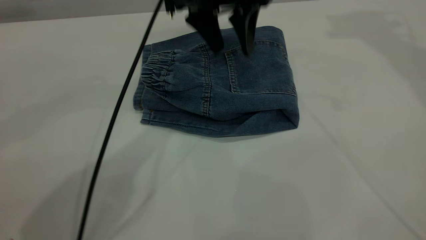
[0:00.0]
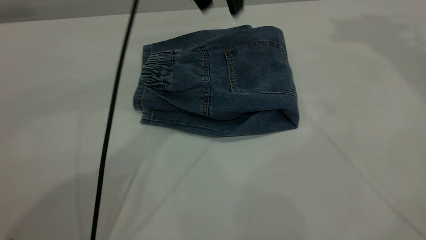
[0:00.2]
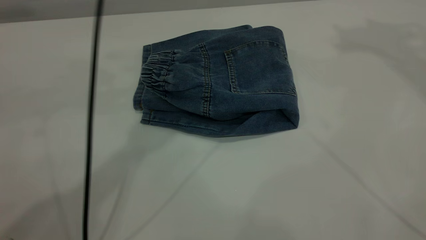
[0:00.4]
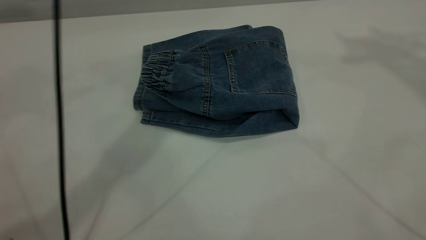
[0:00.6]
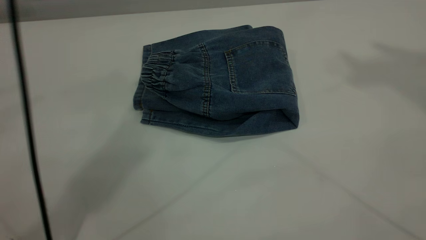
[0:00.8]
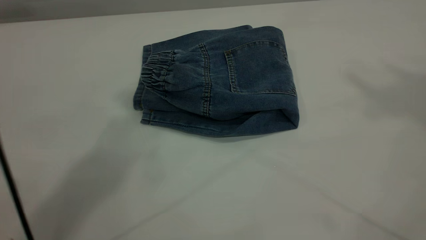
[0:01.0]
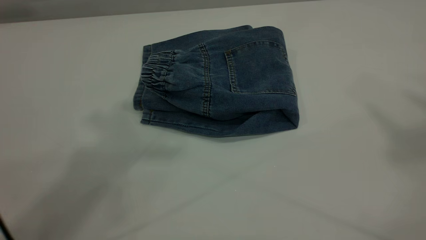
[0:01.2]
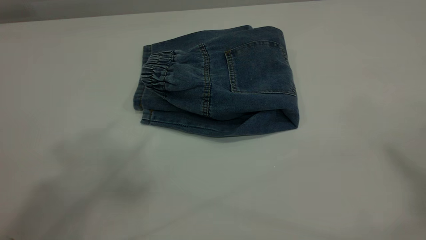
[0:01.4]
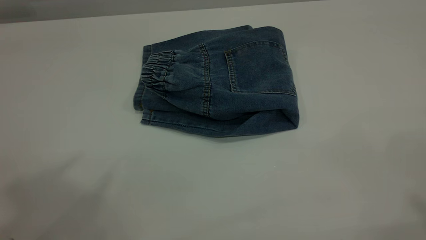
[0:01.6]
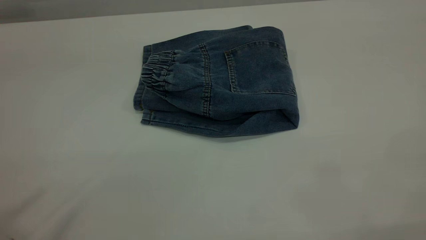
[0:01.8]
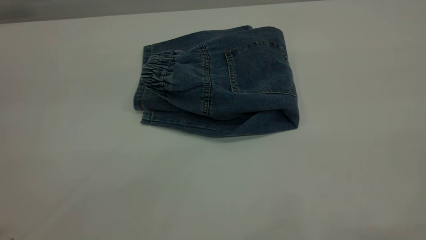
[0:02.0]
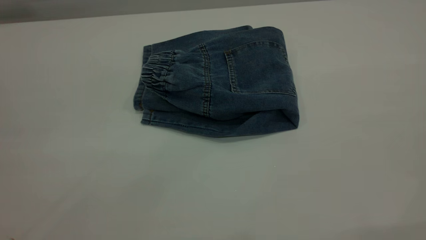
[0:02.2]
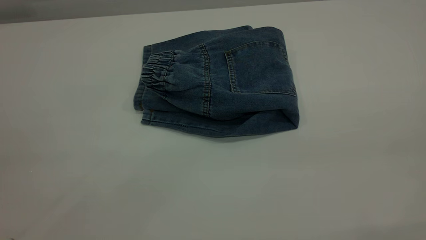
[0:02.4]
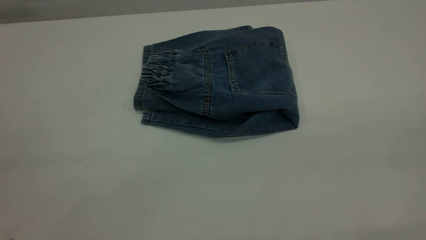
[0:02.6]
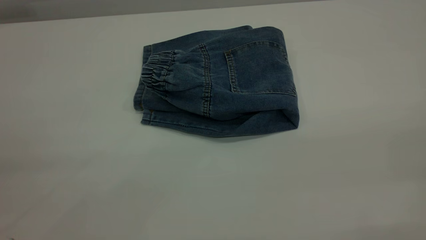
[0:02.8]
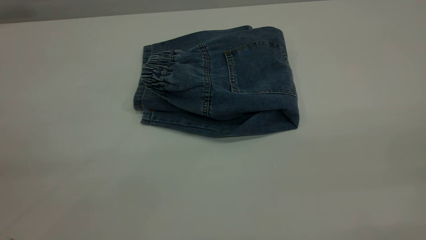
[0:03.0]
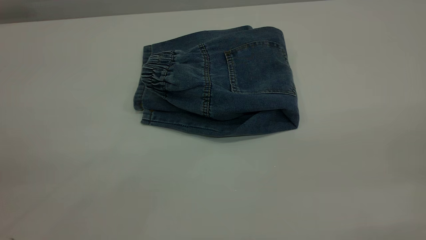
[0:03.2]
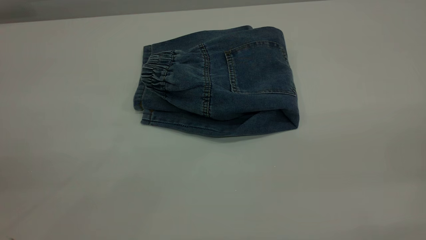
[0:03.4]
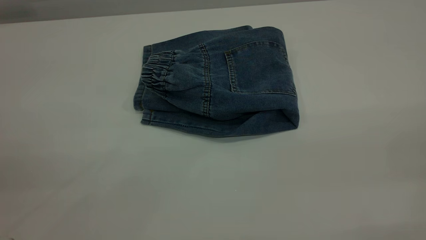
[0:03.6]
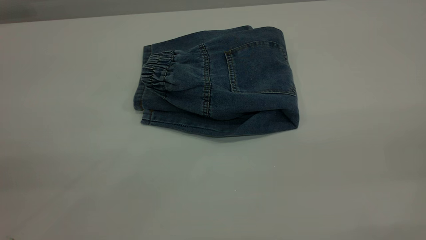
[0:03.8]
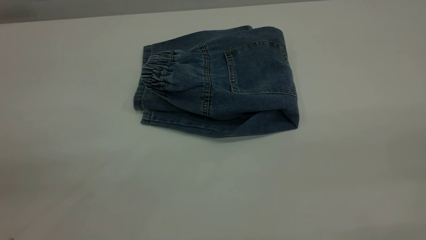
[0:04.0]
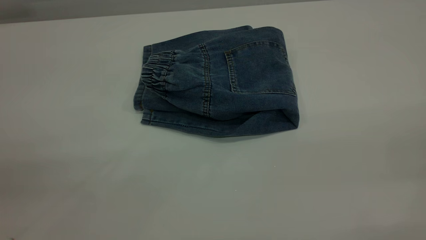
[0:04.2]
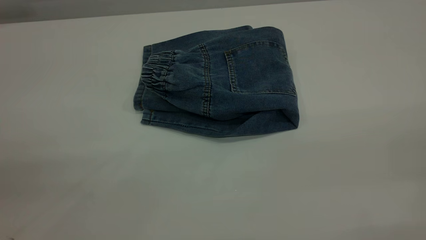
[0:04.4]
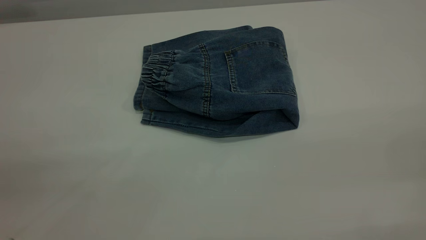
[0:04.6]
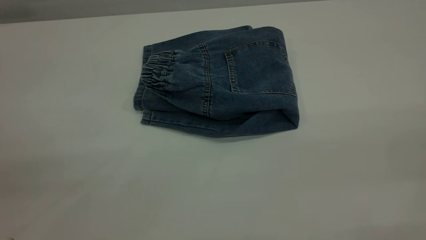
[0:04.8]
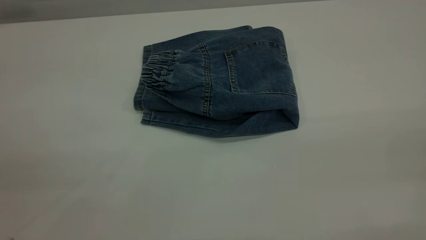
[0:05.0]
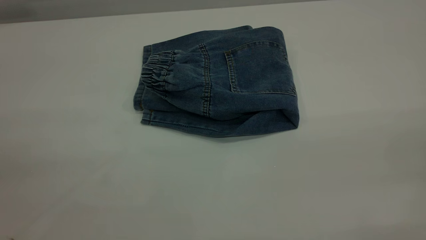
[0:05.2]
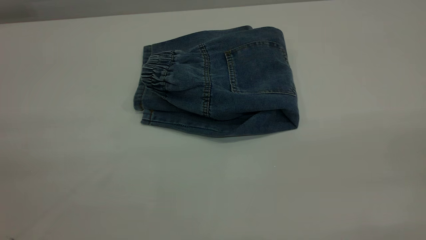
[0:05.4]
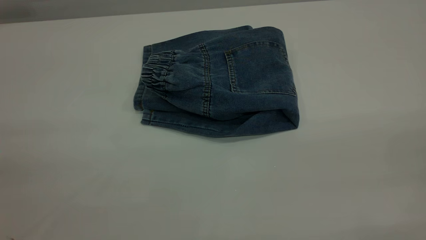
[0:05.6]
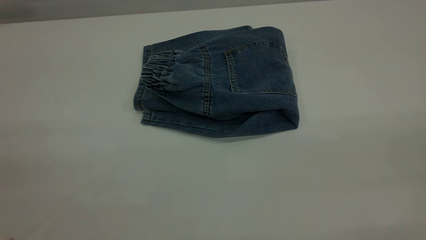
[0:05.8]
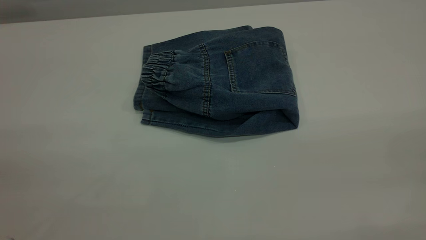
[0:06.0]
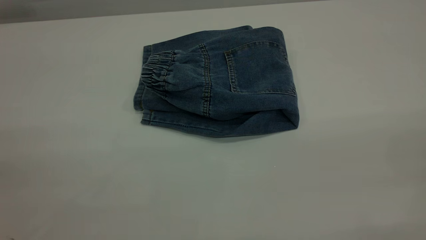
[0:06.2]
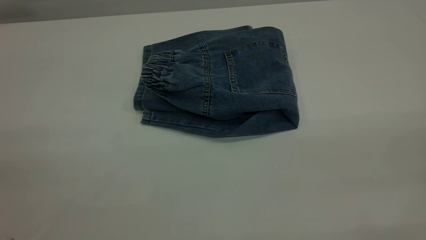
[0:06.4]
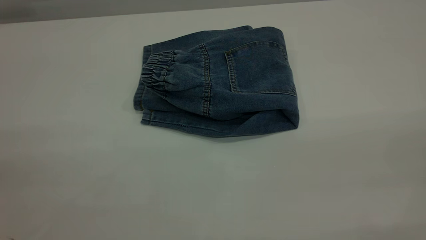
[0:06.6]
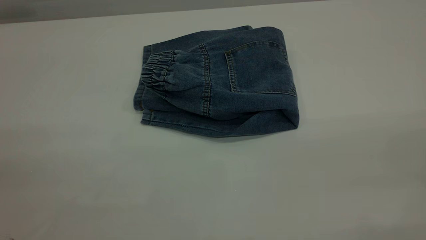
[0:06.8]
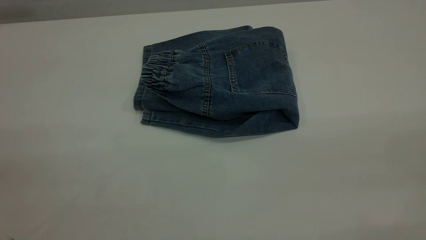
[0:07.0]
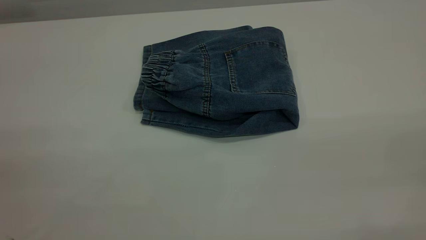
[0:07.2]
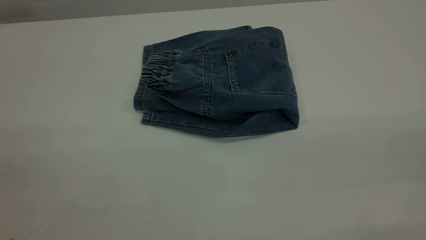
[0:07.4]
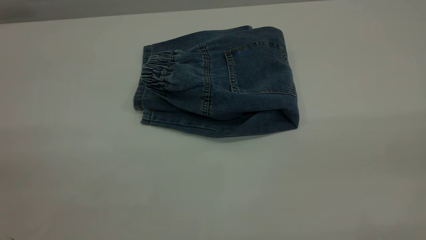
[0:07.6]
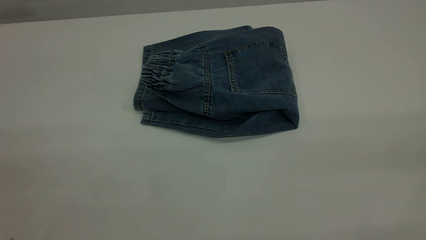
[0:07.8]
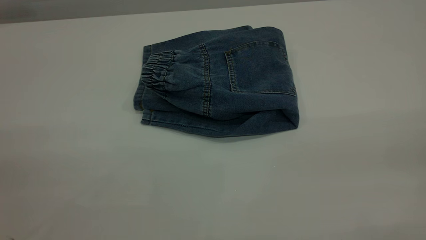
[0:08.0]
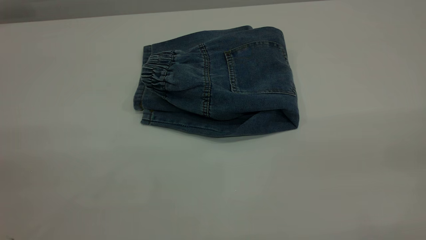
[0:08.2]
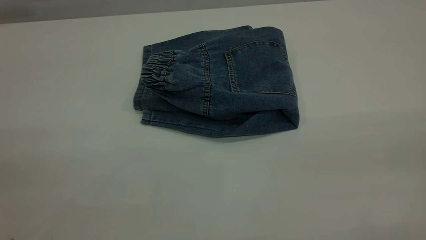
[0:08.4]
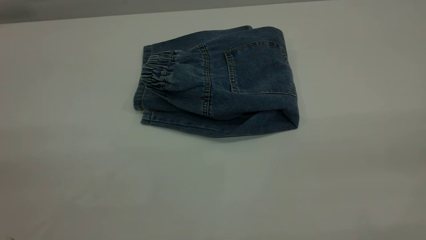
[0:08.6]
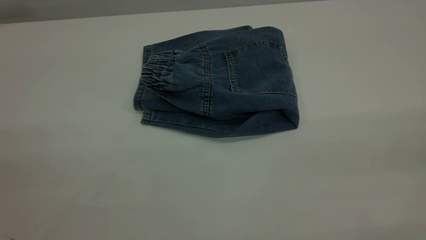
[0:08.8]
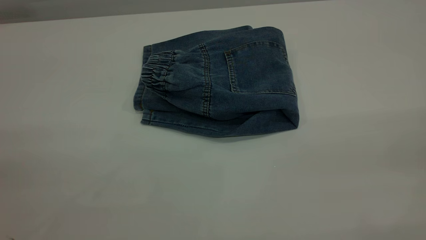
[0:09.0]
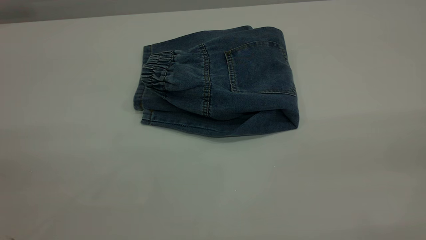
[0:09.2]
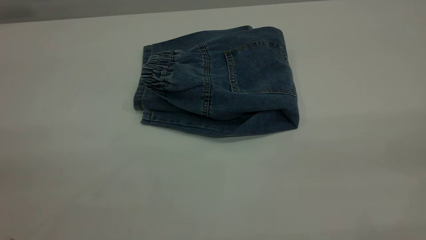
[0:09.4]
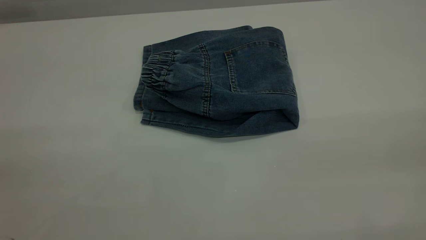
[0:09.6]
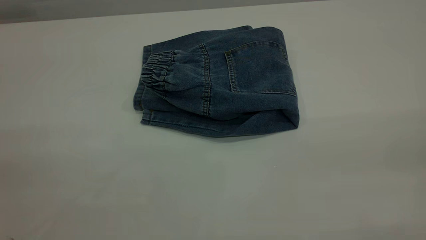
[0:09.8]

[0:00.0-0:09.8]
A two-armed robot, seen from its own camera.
0:00.0 to 0:01.4: The right gripper is displaced backward and upward by some 35 cm; the left gripper is displaced upward, backward and to the left by roughly 40 cm.
0:05.6 to 0:07.0: Both grippers stay about where they are.
0:08.4 to 0:09.8: Neither gripper changes place.
